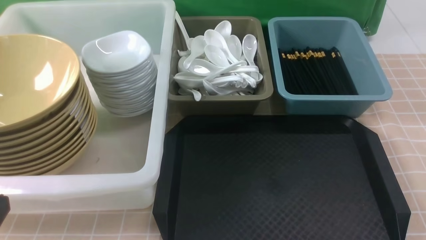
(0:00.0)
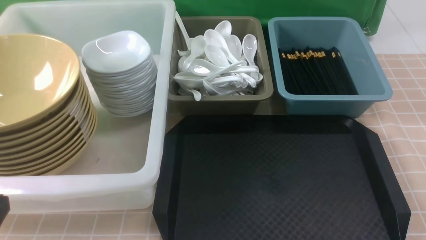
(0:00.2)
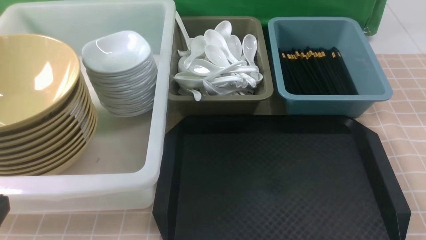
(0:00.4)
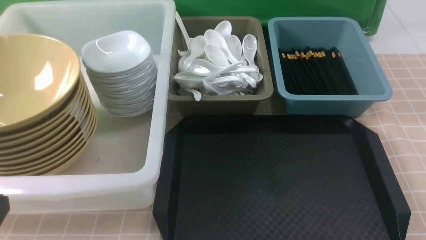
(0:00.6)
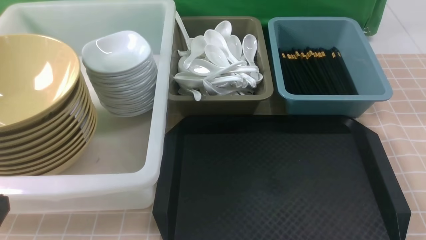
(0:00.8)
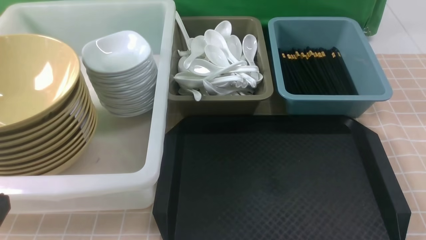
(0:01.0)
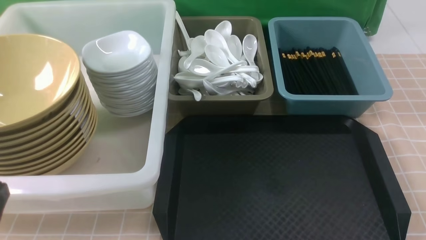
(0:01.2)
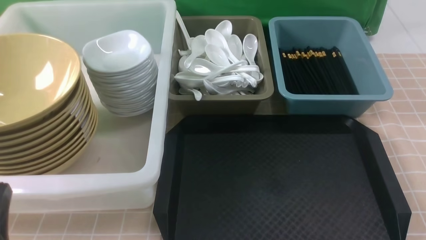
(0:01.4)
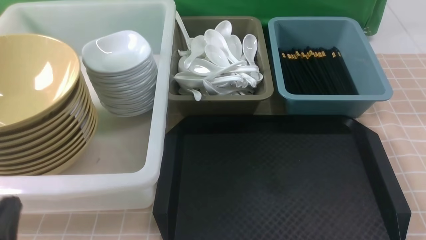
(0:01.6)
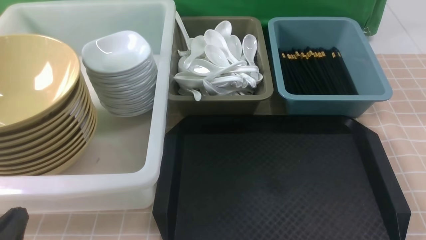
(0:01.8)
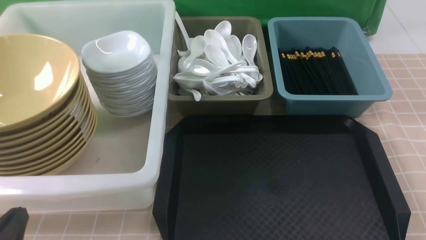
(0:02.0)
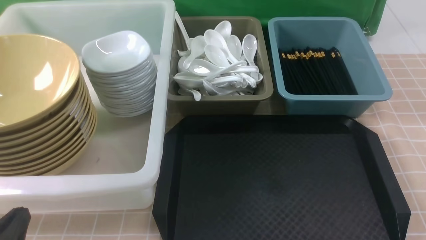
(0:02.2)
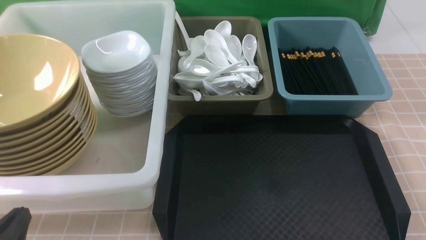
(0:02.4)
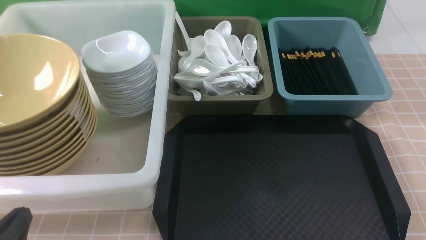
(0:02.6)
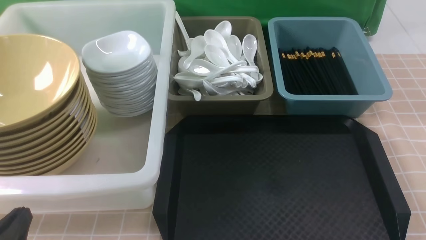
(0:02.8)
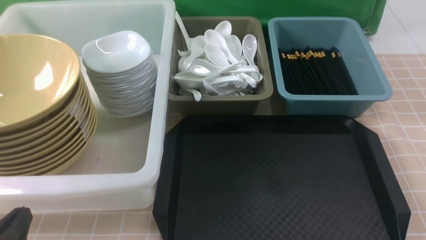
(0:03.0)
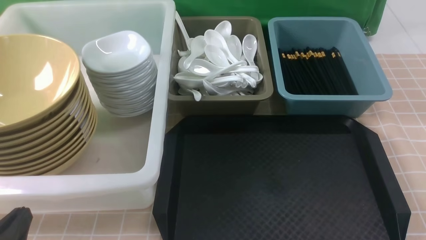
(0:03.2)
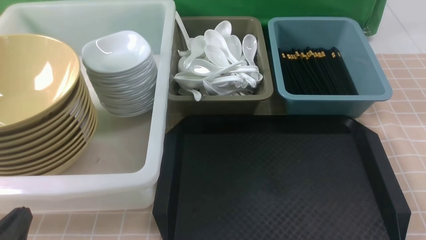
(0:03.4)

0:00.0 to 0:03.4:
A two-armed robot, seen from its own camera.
Task of the whole recording: on brown table put chopsticks spoon bowls plates into blue grey white boxes.
0:00.0 to 0:01.6: The left gripper is displaced downward by approximately 10 cm.
